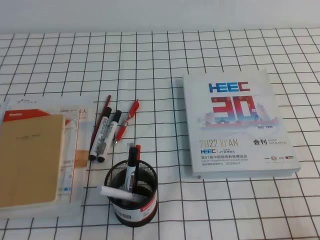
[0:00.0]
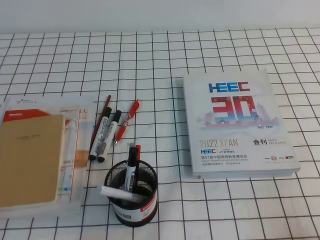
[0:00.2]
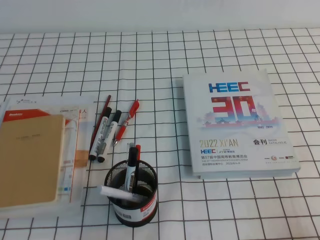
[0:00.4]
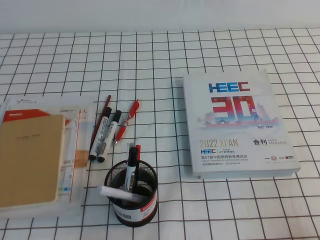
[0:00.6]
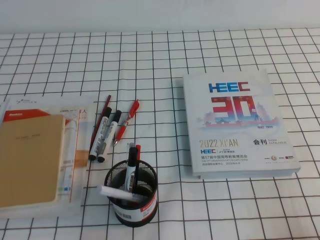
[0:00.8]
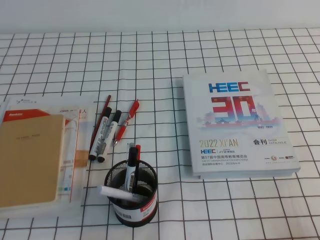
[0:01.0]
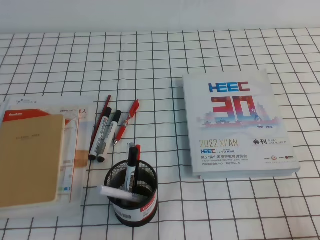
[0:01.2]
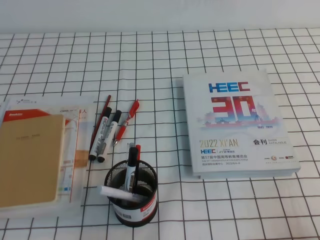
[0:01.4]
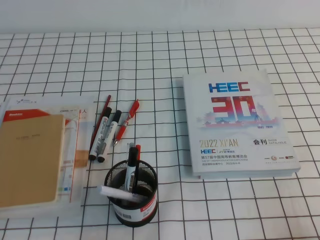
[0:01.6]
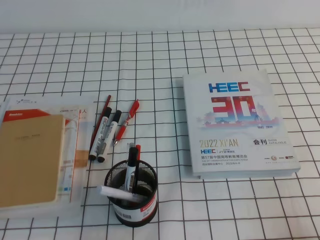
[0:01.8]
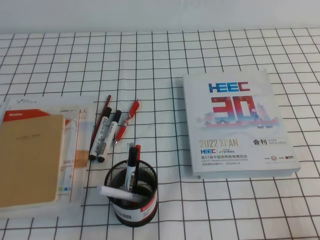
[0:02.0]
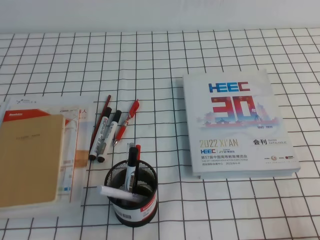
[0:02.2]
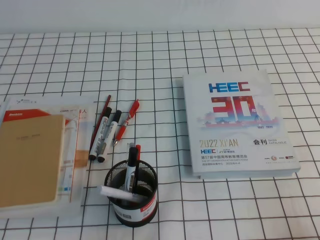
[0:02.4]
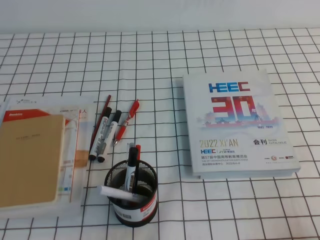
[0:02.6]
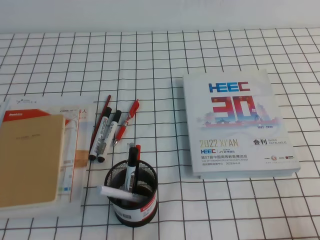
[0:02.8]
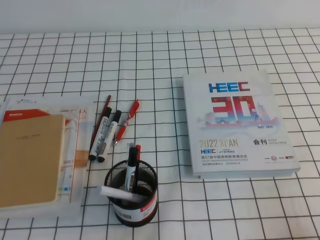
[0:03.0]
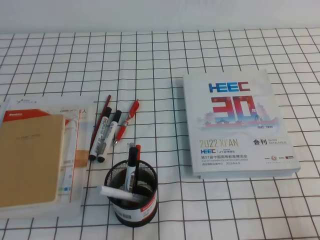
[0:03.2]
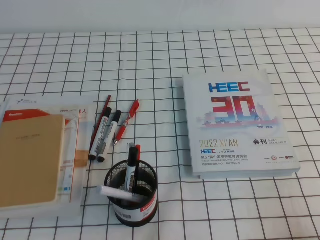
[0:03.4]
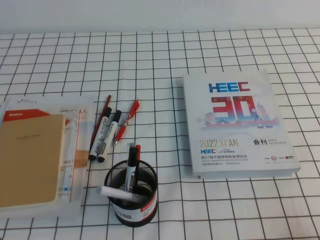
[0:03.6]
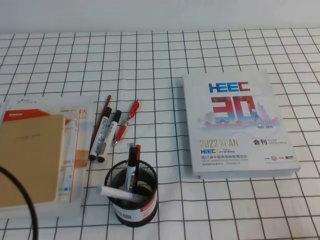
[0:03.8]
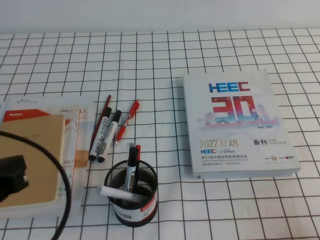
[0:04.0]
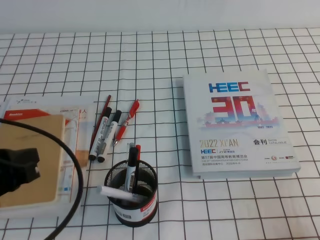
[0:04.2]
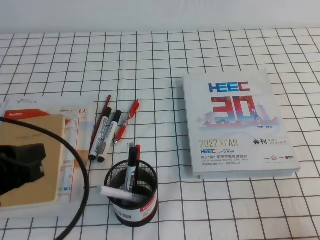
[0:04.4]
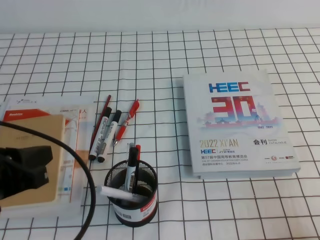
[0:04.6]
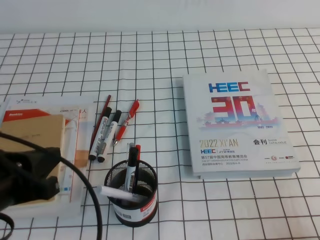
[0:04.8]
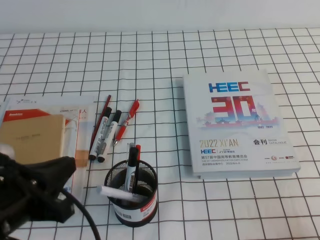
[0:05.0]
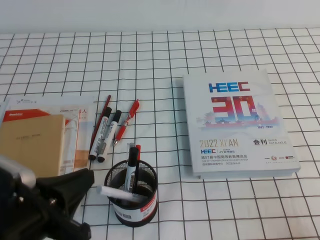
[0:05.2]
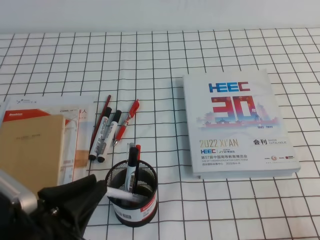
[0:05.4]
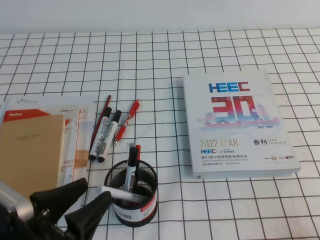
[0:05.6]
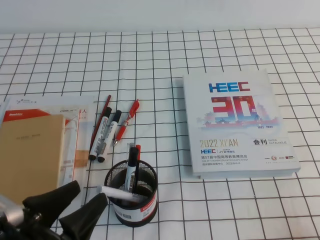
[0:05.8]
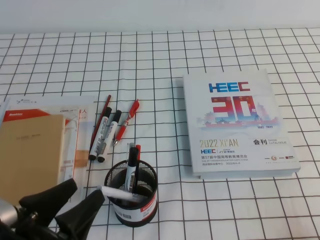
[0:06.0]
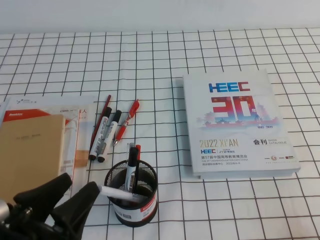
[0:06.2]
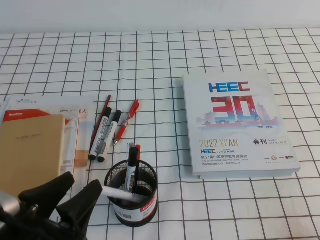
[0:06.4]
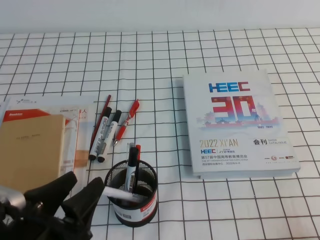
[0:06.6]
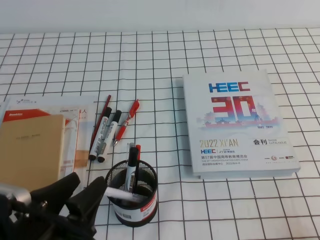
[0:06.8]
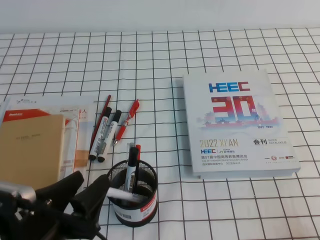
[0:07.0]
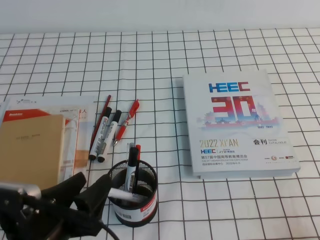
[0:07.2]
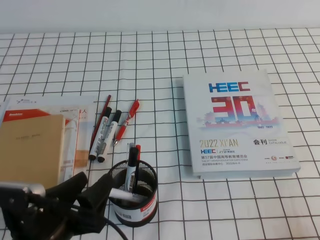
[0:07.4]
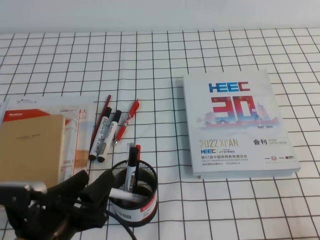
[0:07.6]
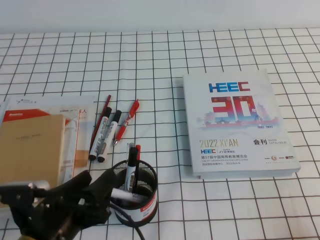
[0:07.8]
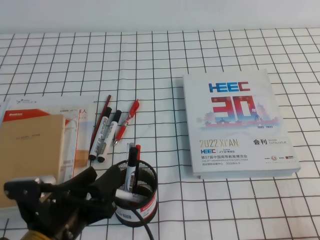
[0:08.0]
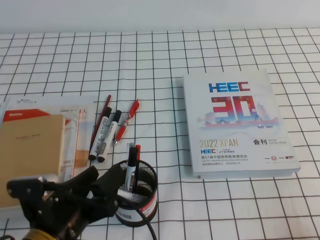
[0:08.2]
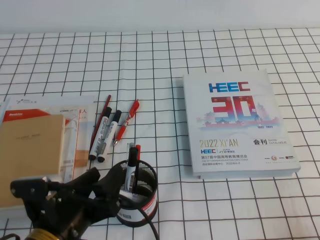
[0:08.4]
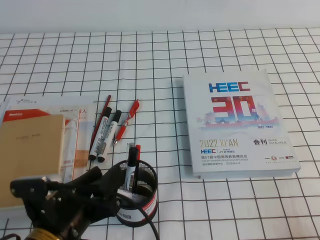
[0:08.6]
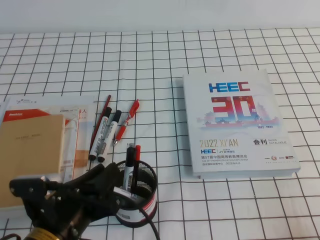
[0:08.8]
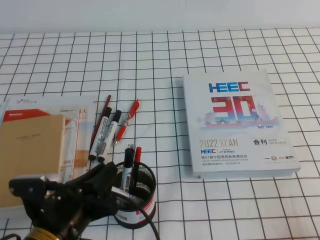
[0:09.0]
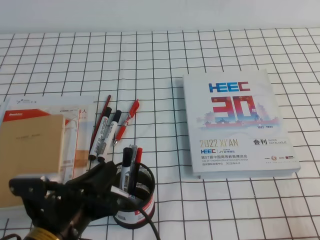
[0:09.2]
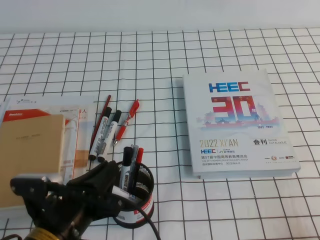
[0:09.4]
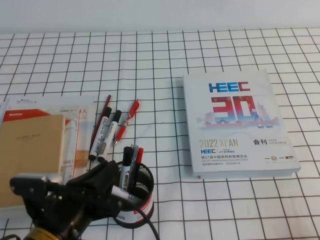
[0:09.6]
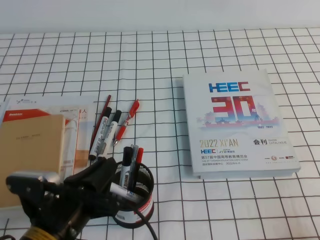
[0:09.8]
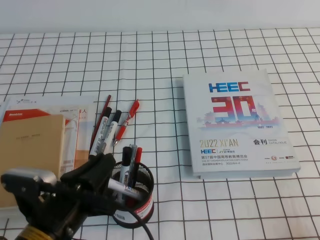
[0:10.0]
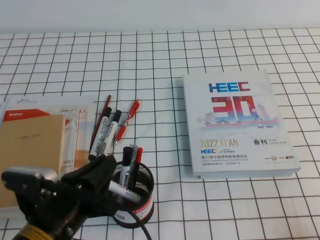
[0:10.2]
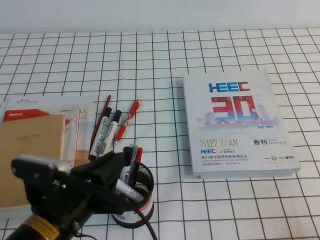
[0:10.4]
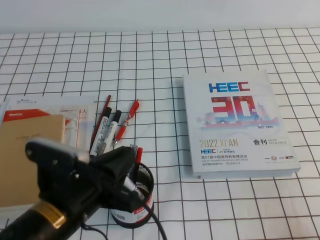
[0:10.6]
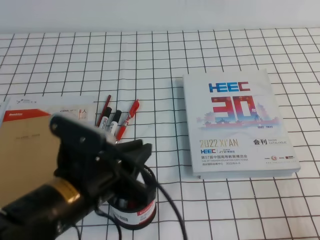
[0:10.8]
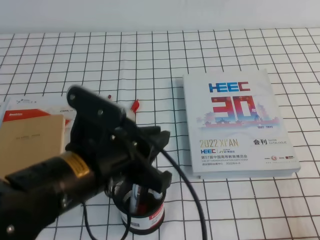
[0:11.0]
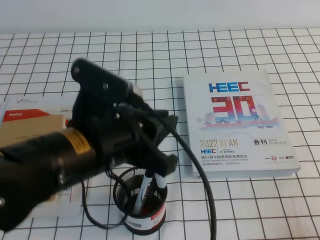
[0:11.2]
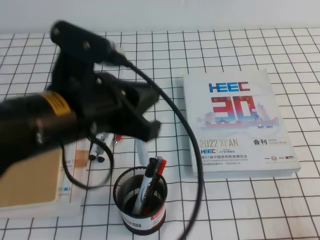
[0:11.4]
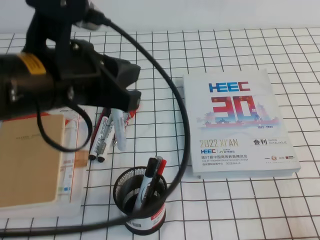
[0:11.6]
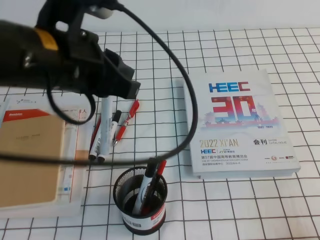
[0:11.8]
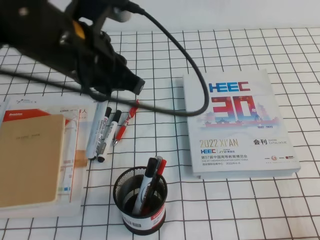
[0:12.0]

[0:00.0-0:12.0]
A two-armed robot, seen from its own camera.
0:00.0 to 0:01.6: The two grippers keep their place.
0:03.0 to 0:04.4: The left gripper goes about 15 cm forward and upward.
0:04.4 to 0:06.0: The left gripper is displaced downward and backward by approximately 10 cm, and opens.
0:06.0 to 0:07.6: The left gripper moves roughly 5 cm.
0:07.6 to 0:09.0: The left gripper closes its fingers.
0:09.0 to 0:10.4: The grippers move only a little.
0:10.4 to 0:12.0: The left gripper shifts about 20 cm upward and forward.

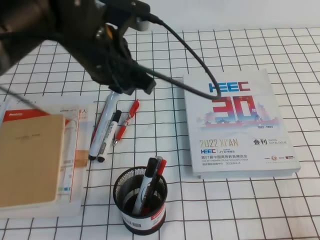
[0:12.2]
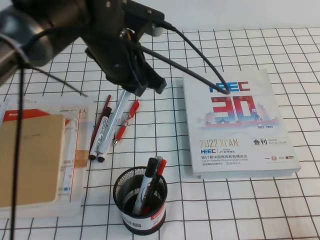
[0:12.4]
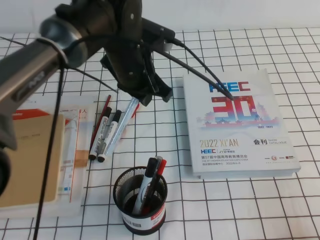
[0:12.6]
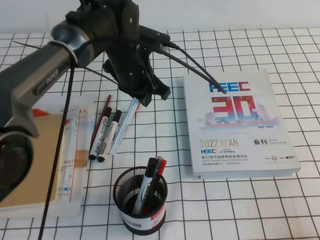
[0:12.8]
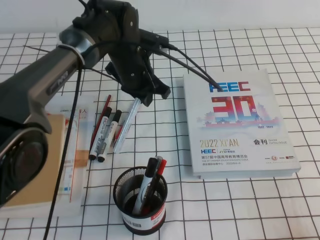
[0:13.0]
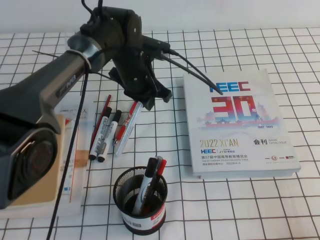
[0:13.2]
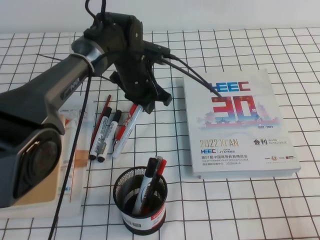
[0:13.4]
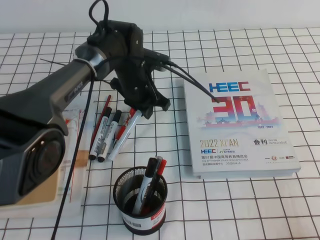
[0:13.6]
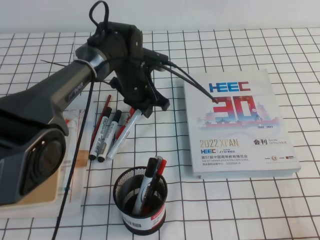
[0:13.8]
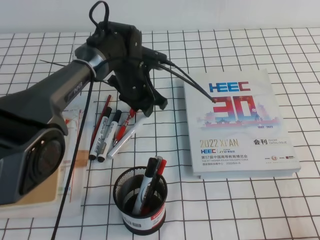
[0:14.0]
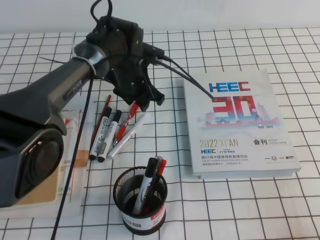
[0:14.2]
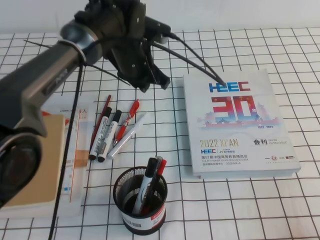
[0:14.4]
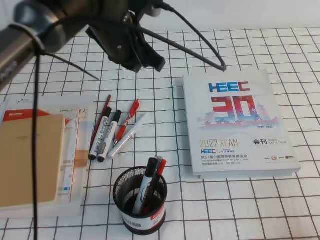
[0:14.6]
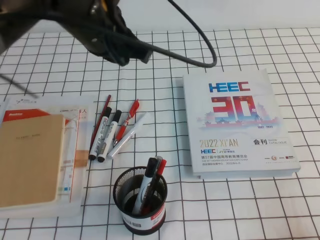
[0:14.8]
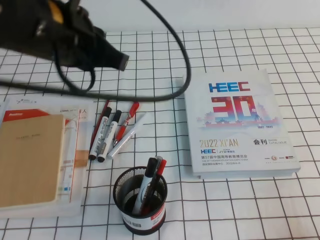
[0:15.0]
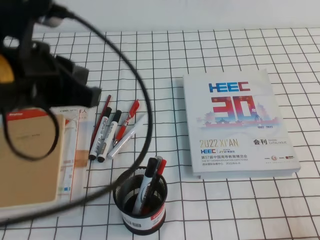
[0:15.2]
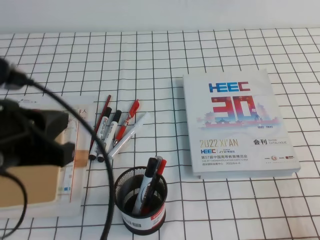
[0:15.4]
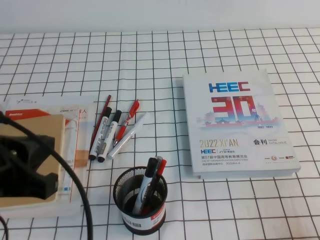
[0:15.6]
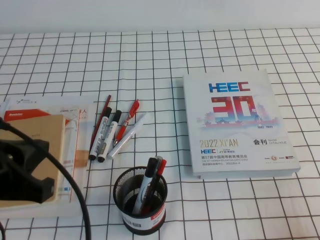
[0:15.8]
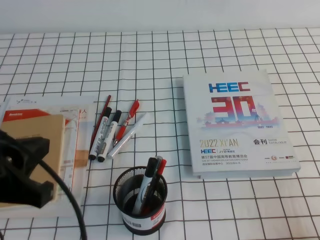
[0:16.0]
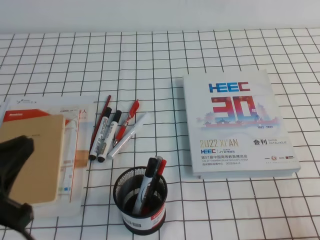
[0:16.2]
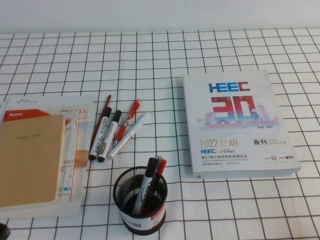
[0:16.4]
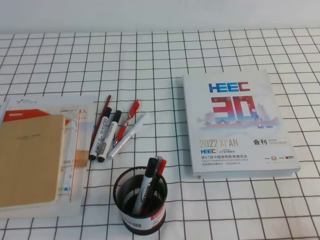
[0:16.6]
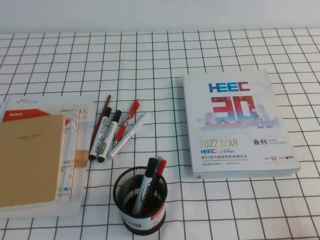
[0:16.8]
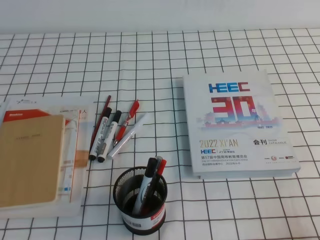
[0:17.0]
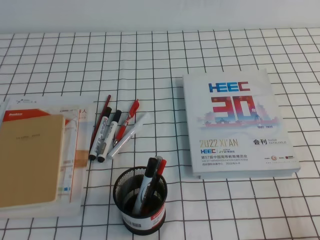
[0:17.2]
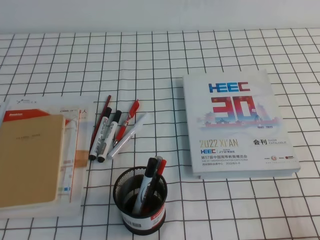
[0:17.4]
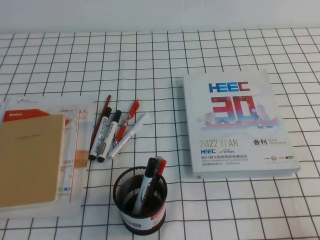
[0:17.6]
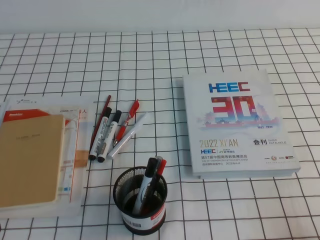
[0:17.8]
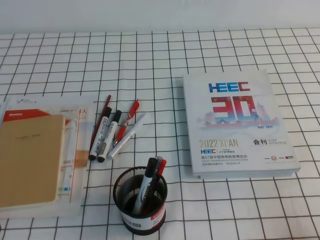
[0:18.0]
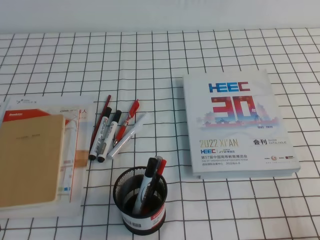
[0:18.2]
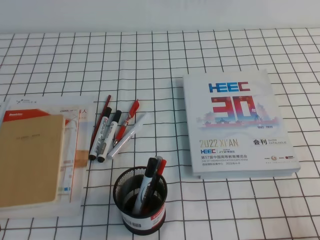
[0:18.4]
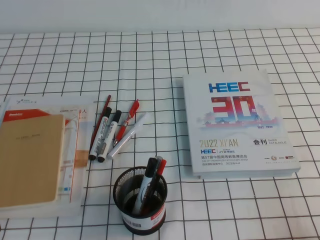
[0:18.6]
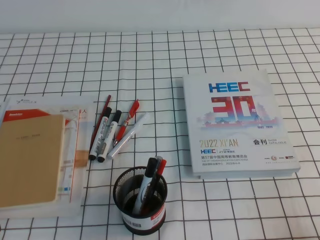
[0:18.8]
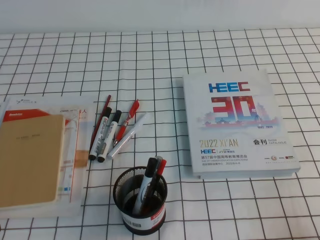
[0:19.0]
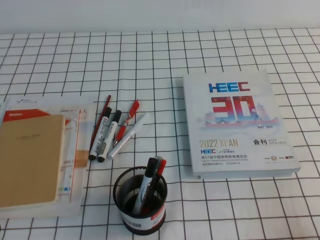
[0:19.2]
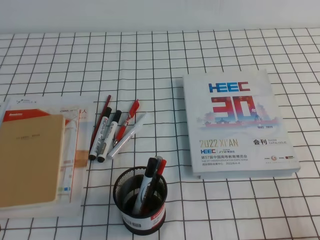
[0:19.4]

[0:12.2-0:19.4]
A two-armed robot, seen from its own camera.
Step, 0:12.2 to 0:19.4: Pick up the pen from the pen holder.
0:12.2 to 0:13.6: The left gripper is displaced downward and forward by some 20 cm.
0:13.6 to 0:15.0: The left gripper shifts some 25 cm upward, backward and to the left, and opens, then closes once more.
0:15.0 to 0:16.6: The left gripper is displaced backward, to the left and downward by about 30 cm.
0:16.6 to 0:18.0: The left gripper shifts roughly 10 cm downward.
0:18.0 to 0:19.4: The two grippers keep their place.

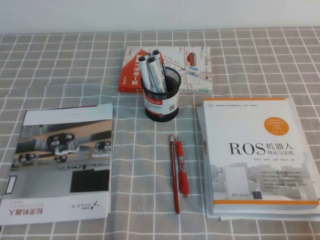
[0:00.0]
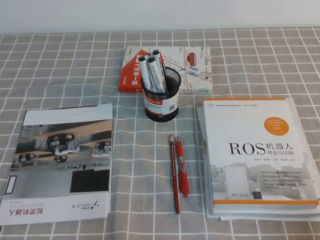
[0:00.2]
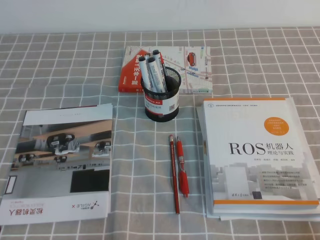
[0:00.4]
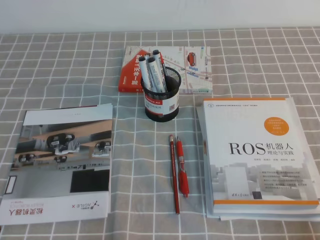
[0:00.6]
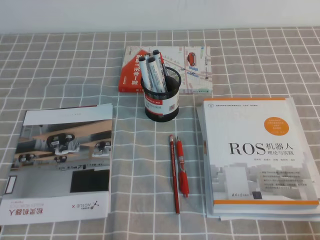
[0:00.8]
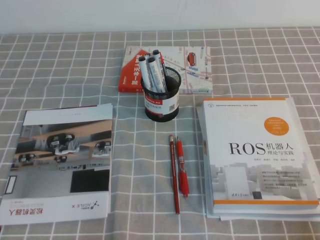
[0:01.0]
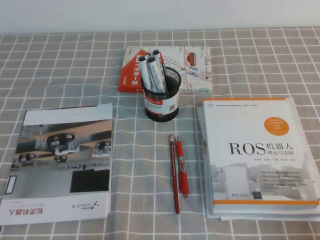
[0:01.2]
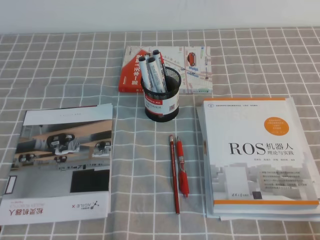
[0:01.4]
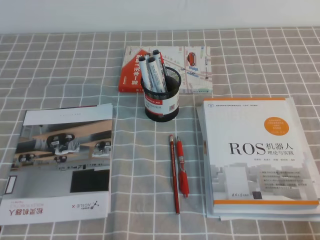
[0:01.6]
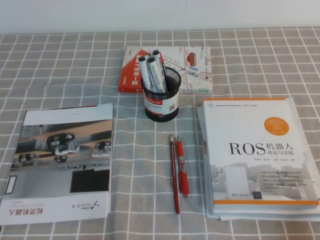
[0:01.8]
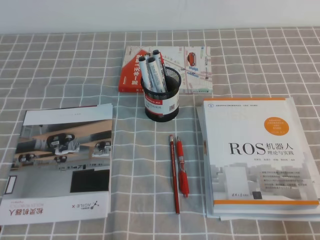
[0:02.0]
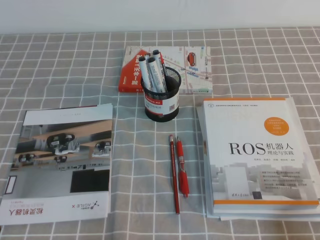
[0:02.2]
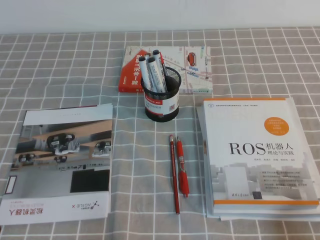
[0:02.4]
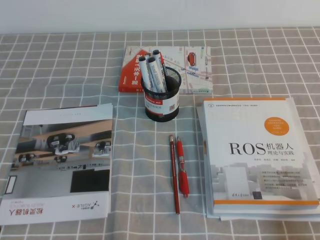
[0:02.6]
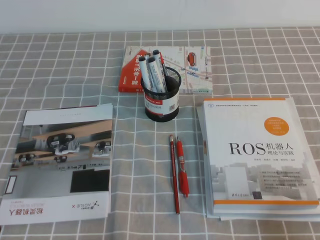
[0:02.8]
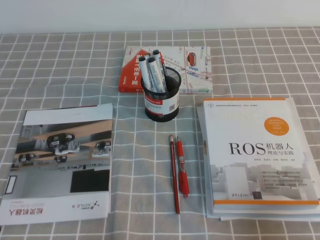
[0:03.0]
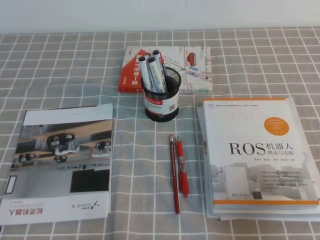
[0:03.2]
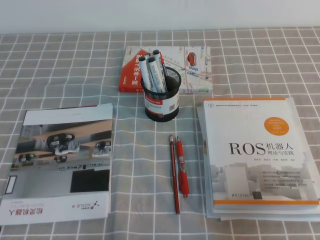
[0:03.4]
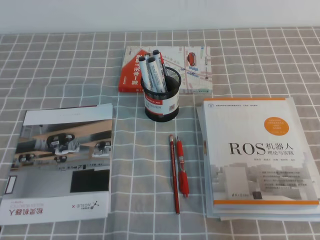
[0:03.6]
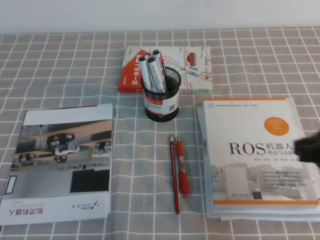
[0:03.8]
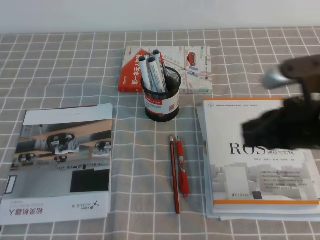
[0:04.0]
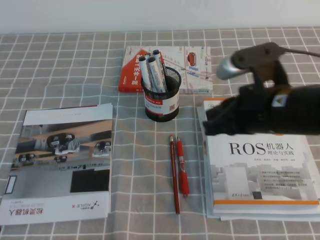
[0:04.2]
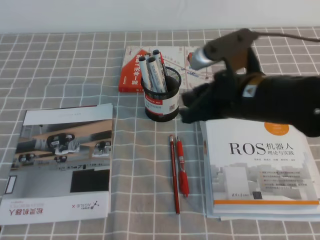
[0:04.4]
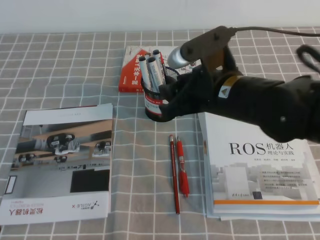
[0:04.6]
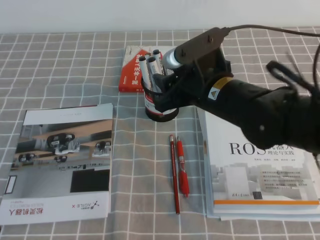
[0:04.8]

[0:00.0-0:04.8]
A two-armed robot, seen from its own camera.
0:00.0 to 0:01.6: Both grippers stay put.
0:01.6 to 0:03.2: The right gripper moves upward, roughly 10 cm.
0:03.2 to 0:04.8: The right gripper shifts approximately 30 cm to the left and forward, and opens.
